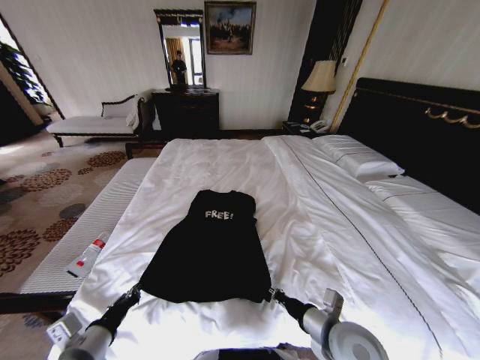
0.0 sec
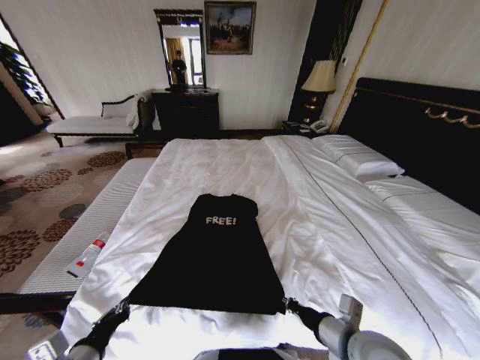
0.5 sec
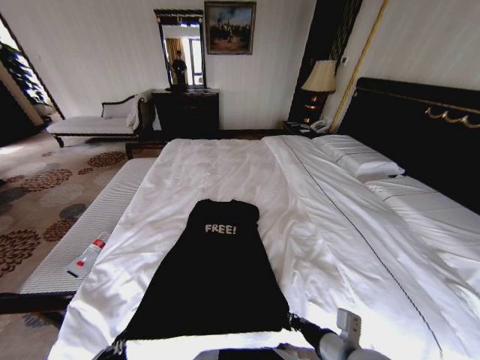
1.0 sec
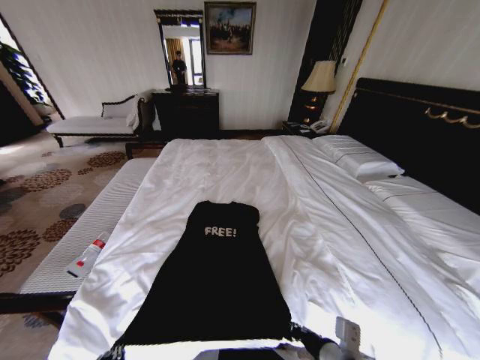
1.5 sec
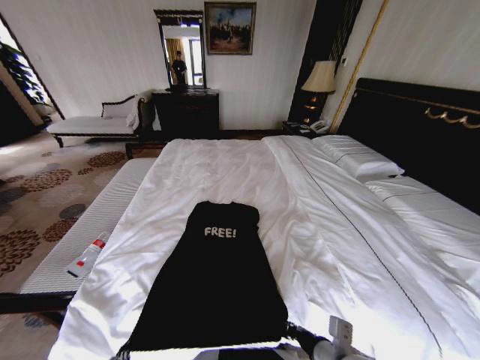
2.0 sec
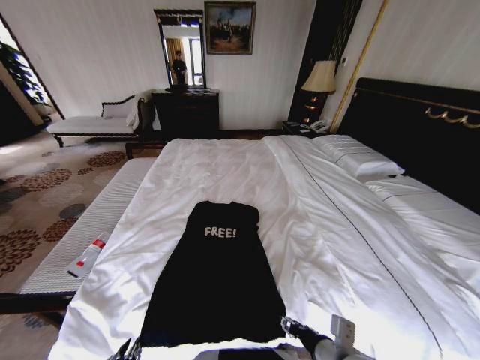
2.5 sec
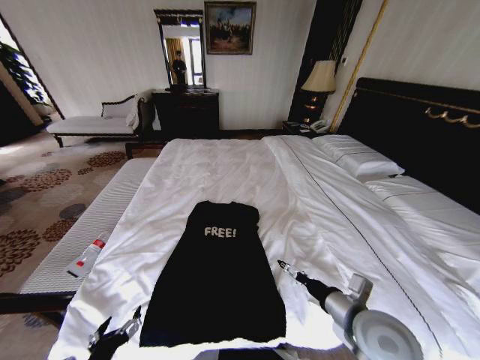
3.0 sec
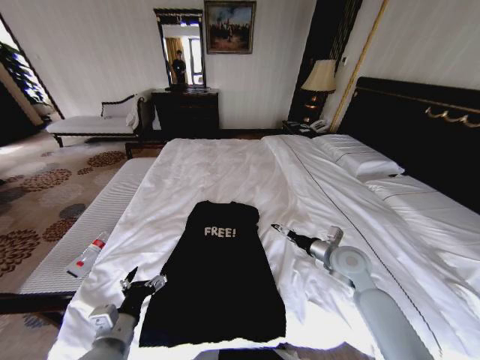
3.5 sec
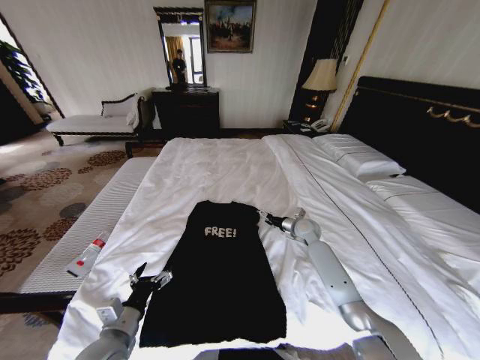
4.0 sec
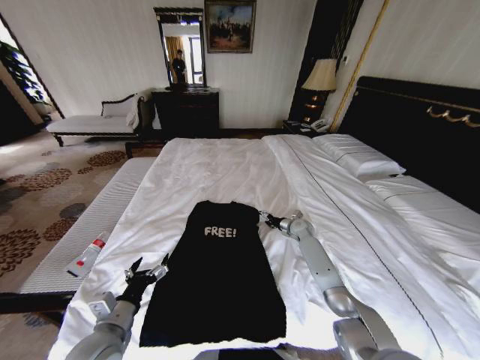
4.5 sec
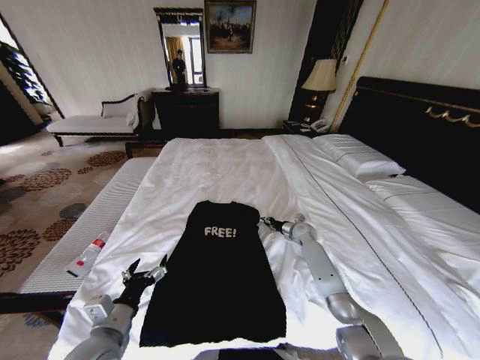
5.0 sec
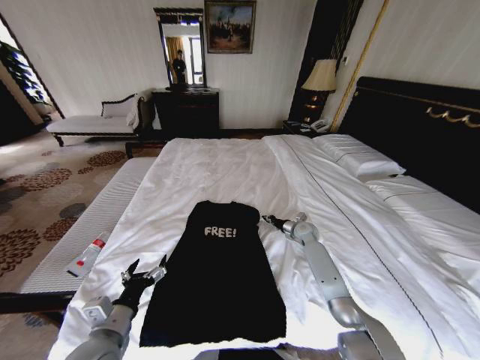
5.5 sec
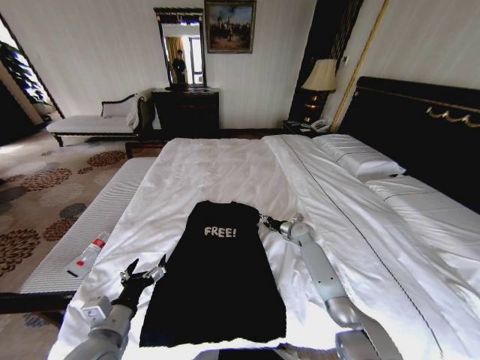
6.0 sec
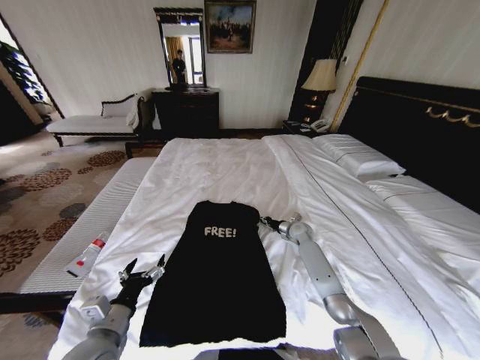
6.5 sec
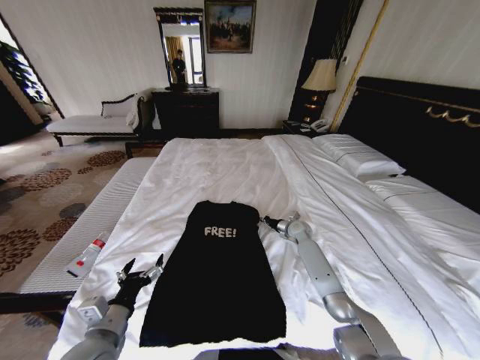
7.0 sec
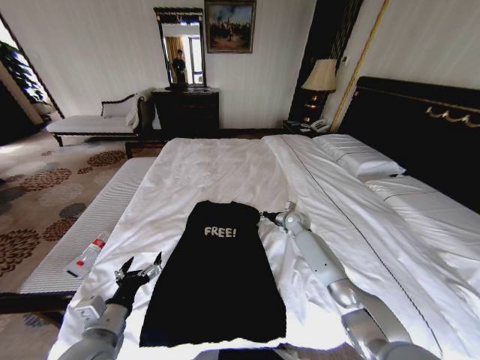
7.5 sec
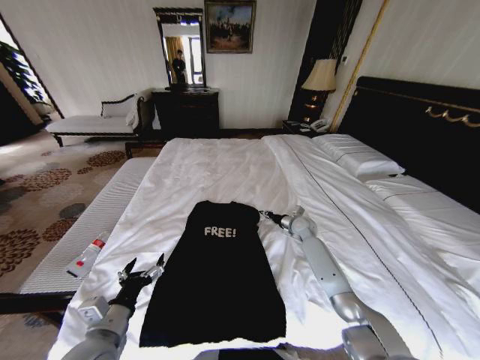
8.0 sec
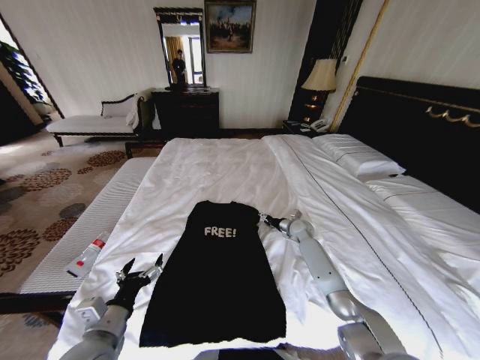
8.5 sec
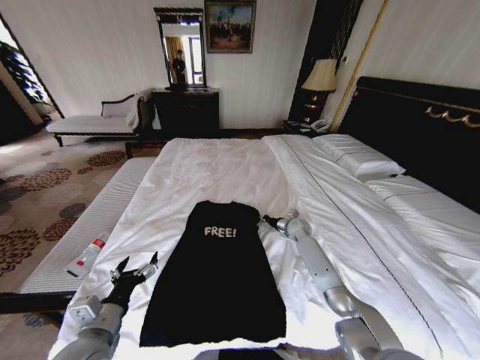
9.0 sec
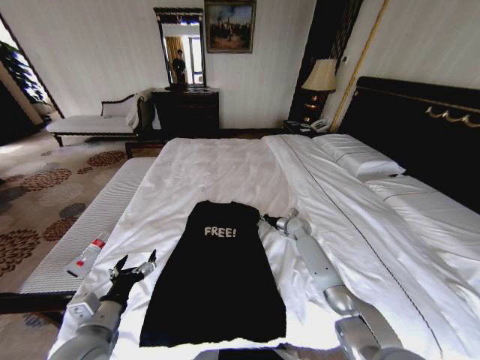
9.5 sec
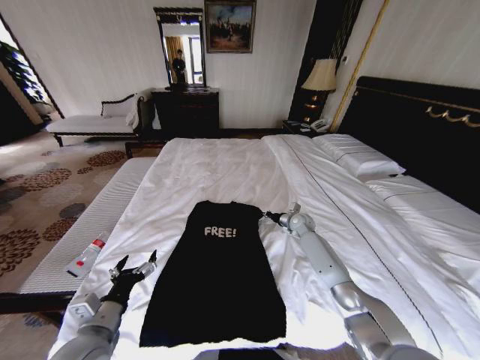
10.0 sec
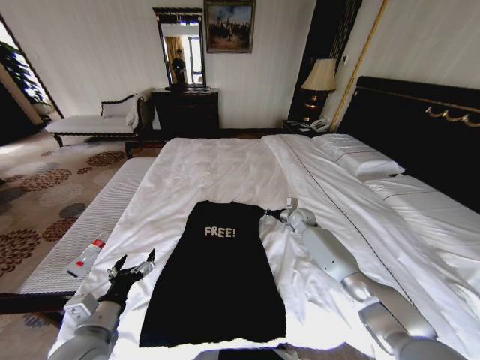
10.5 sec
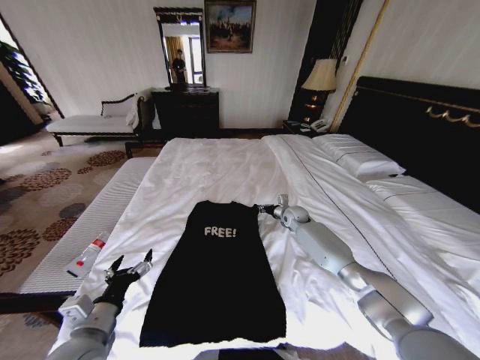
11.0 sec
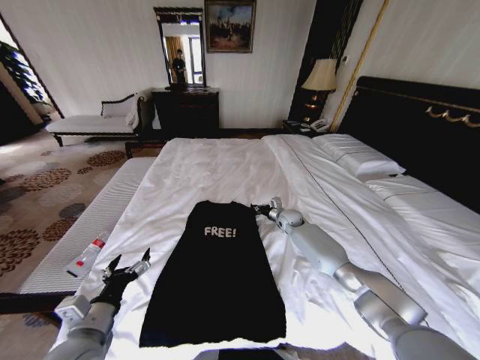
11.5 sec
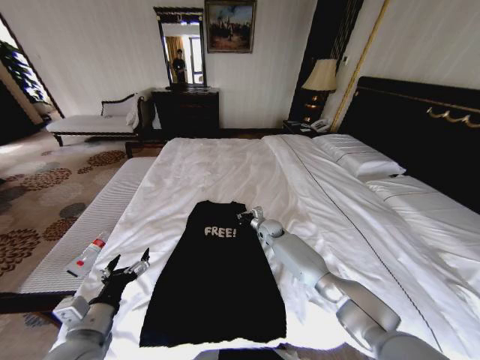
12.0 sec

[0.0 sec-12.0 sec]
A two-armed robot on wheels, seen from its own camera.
Task of the whole recording: Fold the clothes on the bed.
0.0 sec to 2.0 sec: The left gripper travels backward by approximately 10 cm. Meanwhile the right gripper goes roughly 5 cm backward.
2.0 sec to 4.0 sec: The left gripper shifts approximately 15 cm forward, and opens up; the right gripper travels forward by approximately 40 cm, and opens up.
4.0 sec to 6.0 sec: The right gripper shifts by some 5 cm, and closes, then reopens.
6.0 sec to 8.0 sec: The right gripper closes up.
8.0 sec to 10.0 sec: The right gripper opens, then closes once more.
10.0 sec to 12.0 sec: The right gripper is displaced to the left by about 15 cm.

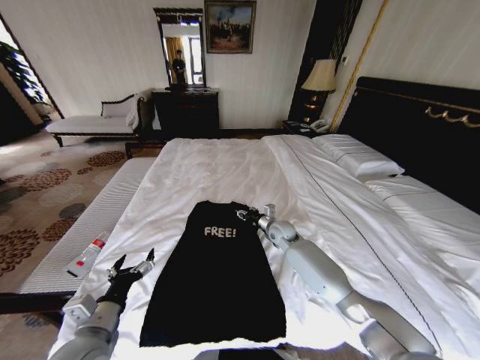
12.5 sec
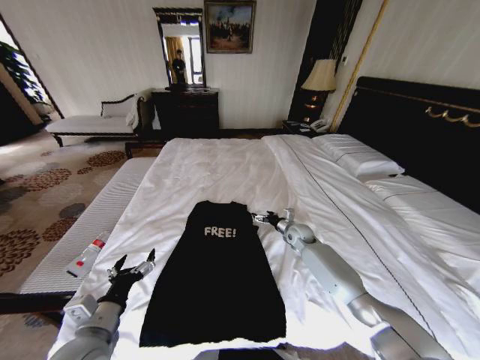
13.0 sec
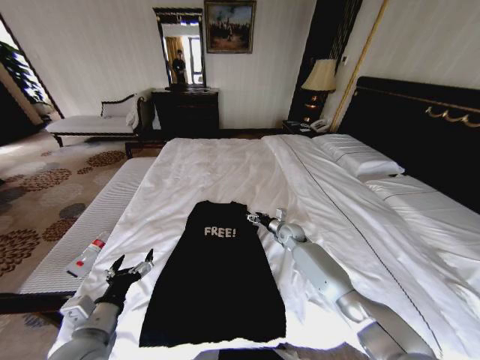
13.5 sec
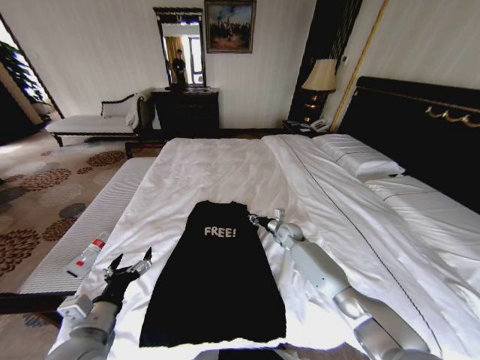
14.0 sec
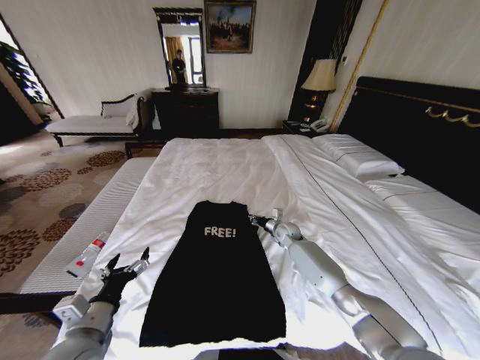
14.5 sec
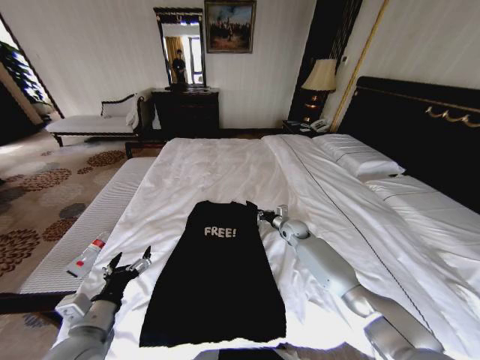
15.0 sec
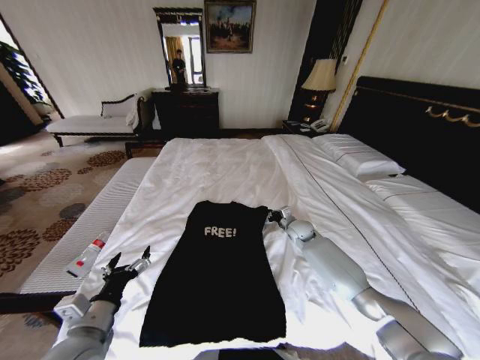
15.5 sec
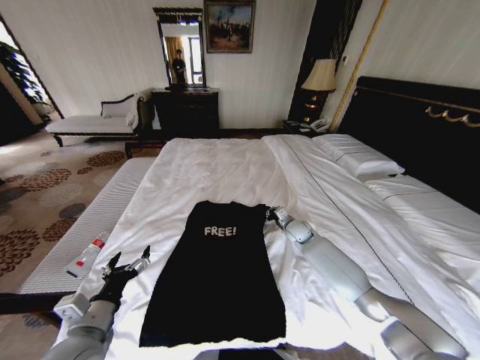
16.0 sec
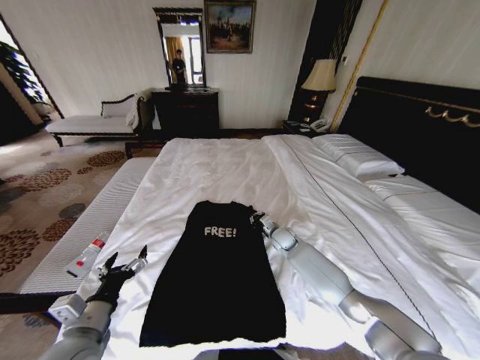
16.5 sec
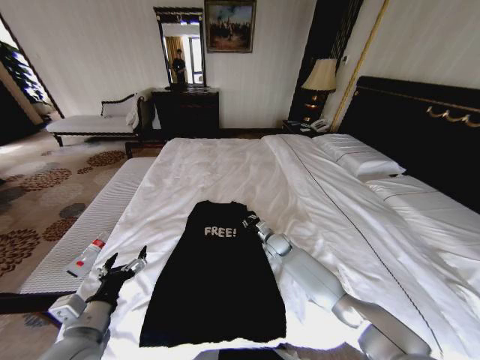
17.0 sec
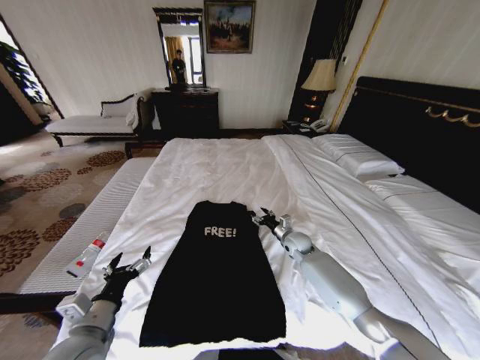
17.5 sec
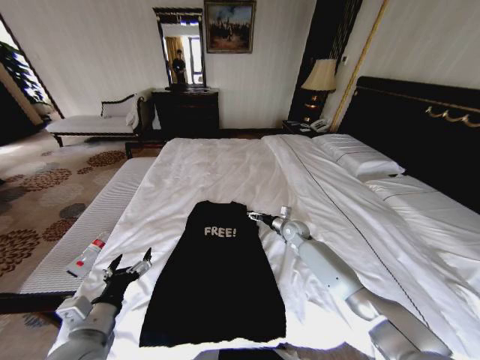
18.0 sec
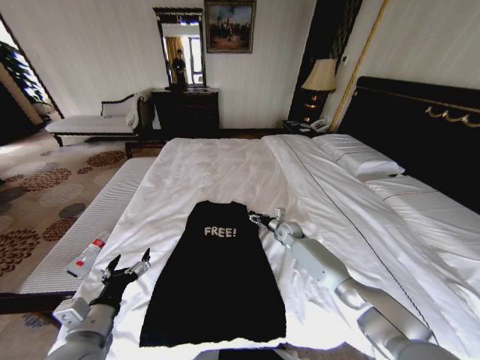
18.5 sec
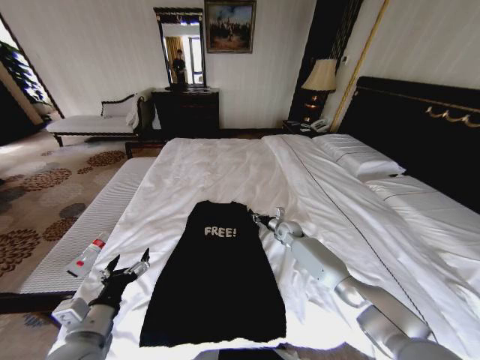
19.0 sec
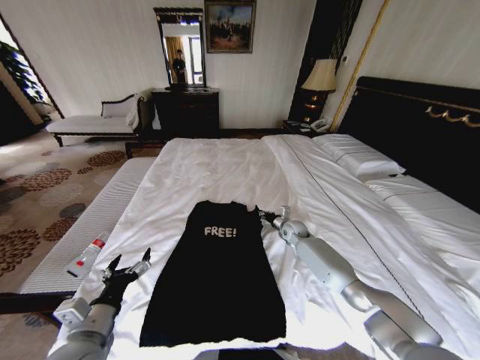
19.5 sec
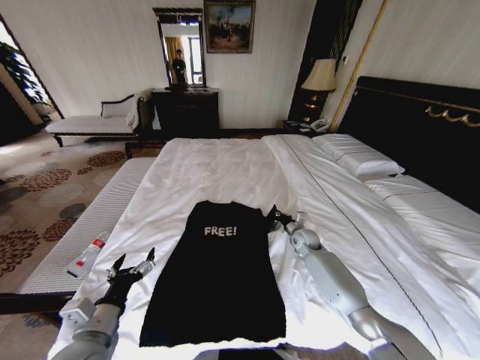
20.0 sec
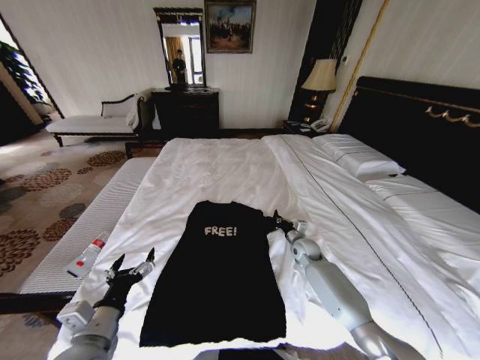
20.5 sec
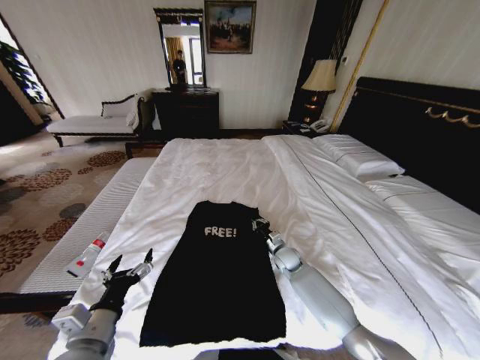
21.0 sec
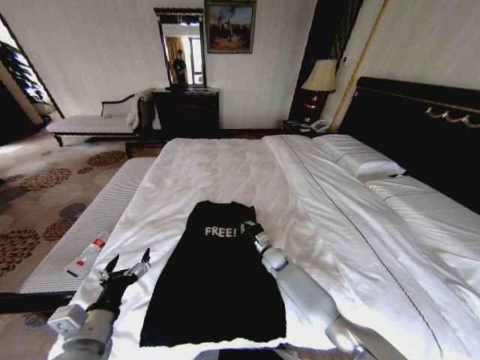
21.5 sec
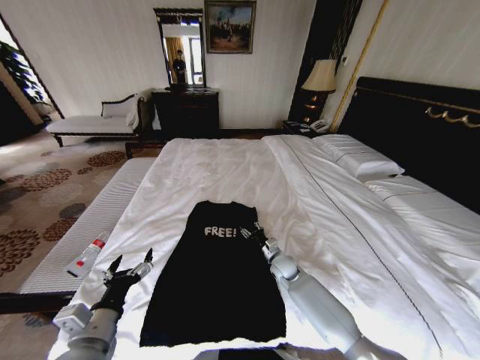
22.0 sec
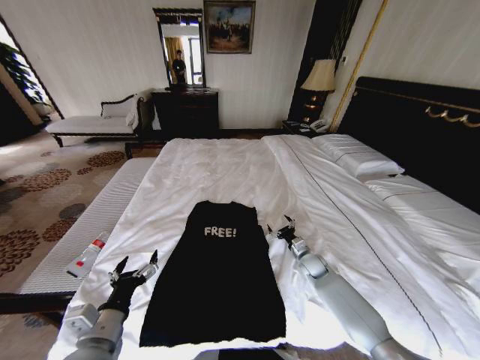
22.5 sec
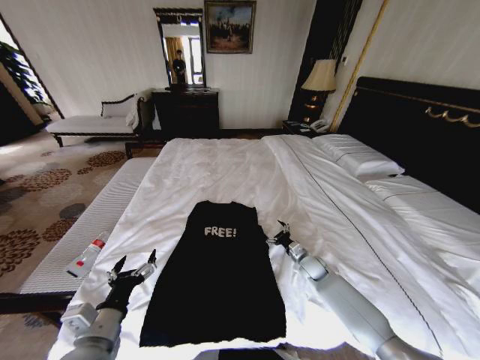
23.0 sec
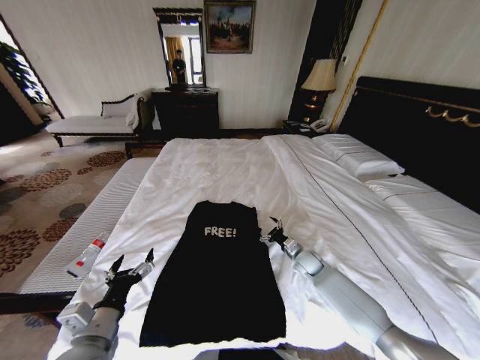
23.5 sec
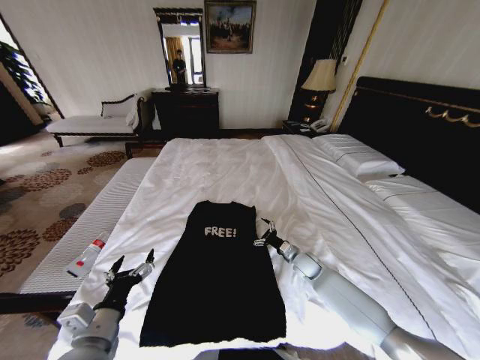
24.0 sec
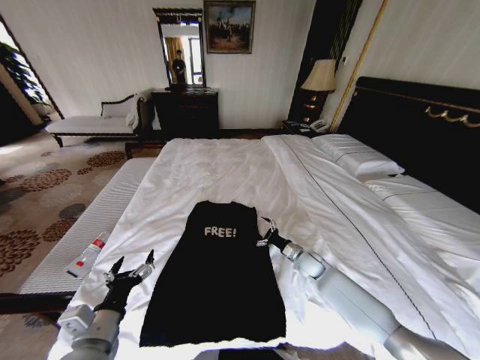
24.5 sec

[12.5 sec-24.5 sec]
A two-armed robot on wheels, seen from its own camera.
Task of the whole recording: Fold the clothes on the bed.
12.5 sec to 14.5 sec: The right gripper changes place by some 5 cm, and closes its fingers.
16.5 sec to 18.5 sec: The right gripper ends up about 5 cm from where it was, and opens up.
18.5 sec to 20.5 sec: The right gripper heads backward, covering roughly 10 cm, and closes its fingers.
20.5 sec to 22.5 sec: The right gripper moves some 10 cm to the left and comes back, and opens.

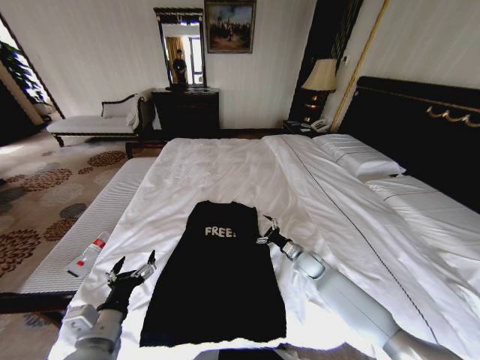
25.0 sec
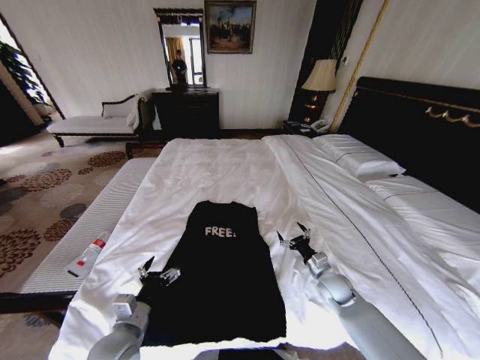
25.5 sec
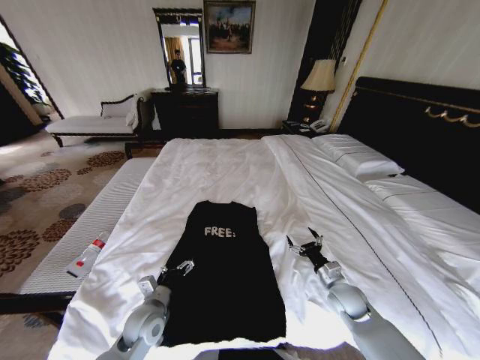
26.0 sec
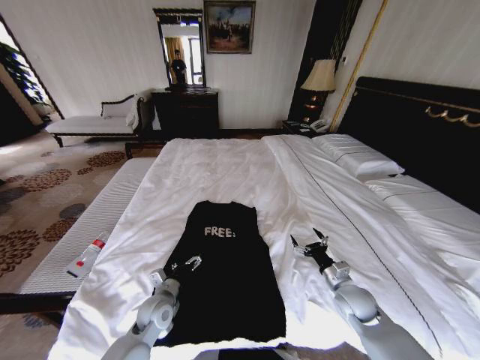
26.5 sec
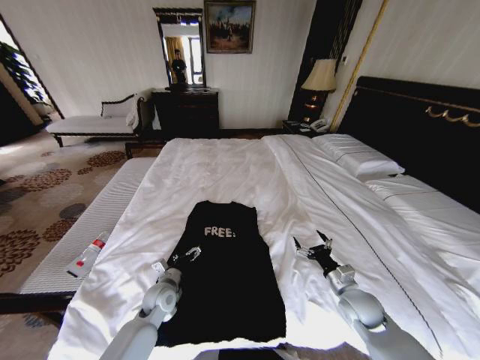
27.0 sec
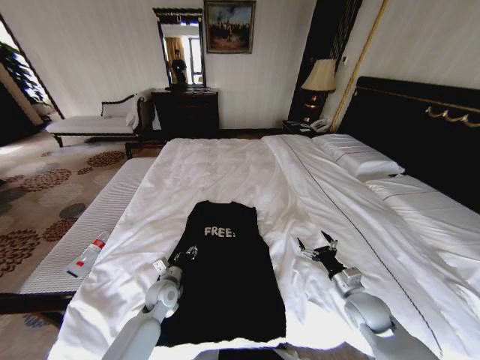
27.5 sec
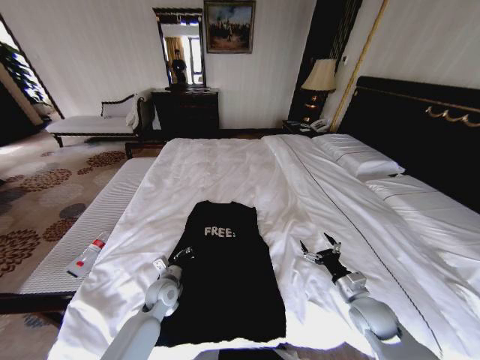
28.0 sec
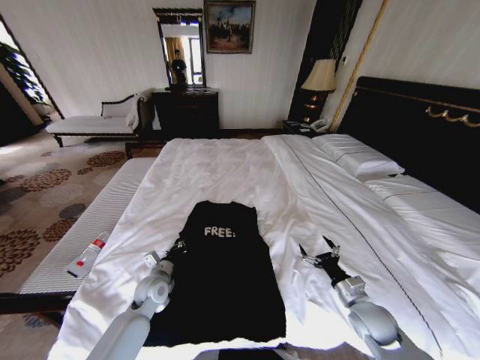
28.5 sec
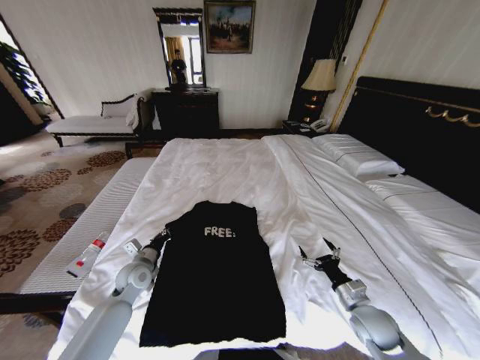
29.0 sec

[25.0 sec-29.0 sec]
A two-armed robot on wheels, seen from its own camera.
Task of the whole recording: Fold the clothes on the bed.
25.0 sec to 27.0 sec: The right gripper heads backward and to the right, covering approximately 15 cm; the left gripper moves forward and downward, roughly 20 cm.
27.0 sec to 29.0 sec: The left gripper moves to the left and upward, about 10 cm, and closes its fingers.
